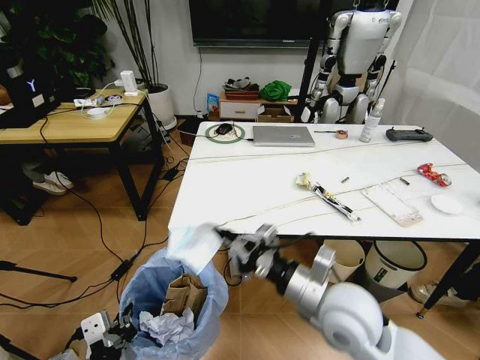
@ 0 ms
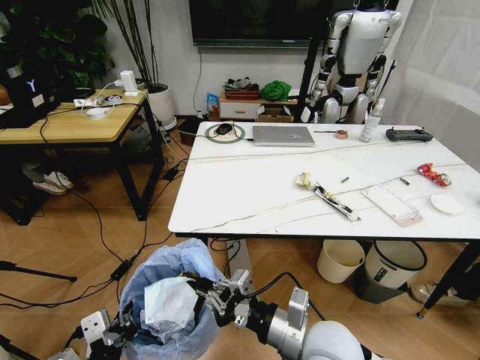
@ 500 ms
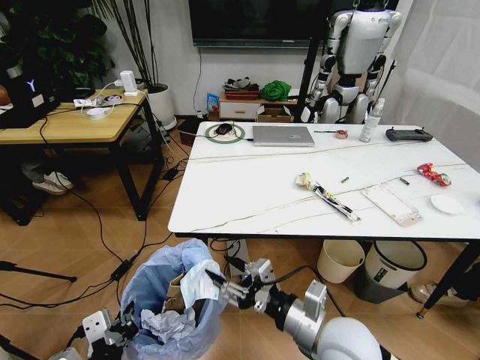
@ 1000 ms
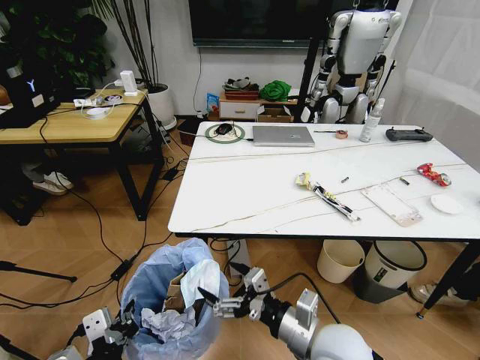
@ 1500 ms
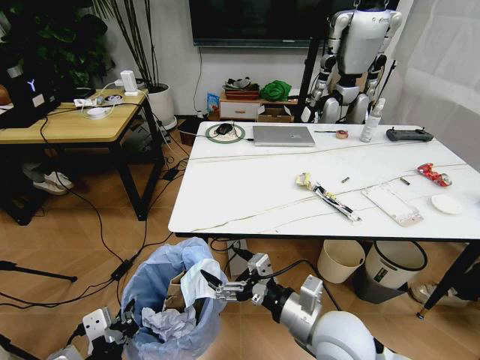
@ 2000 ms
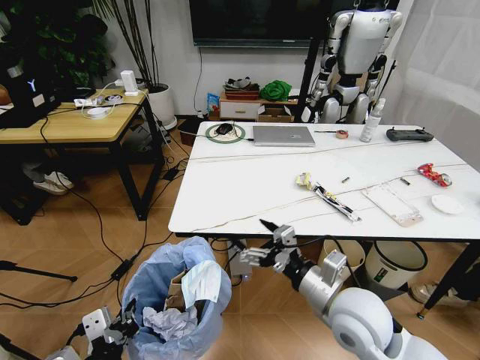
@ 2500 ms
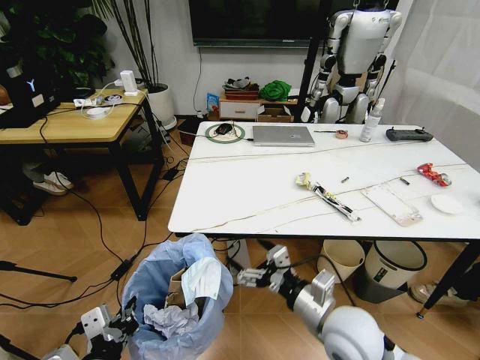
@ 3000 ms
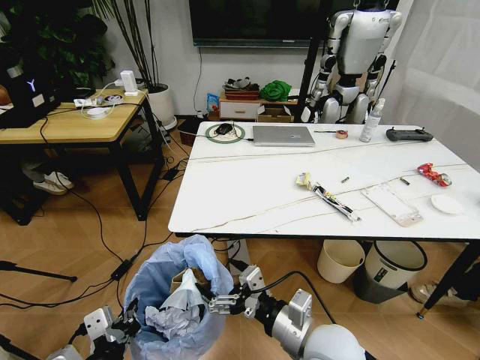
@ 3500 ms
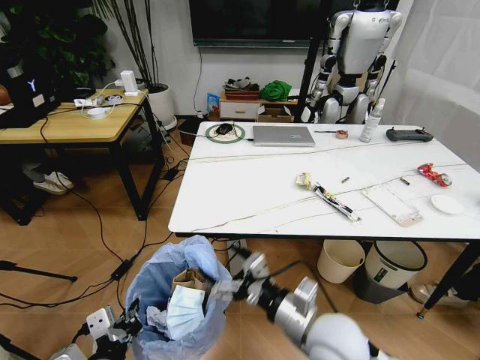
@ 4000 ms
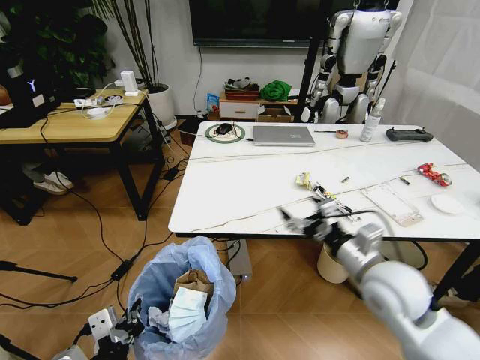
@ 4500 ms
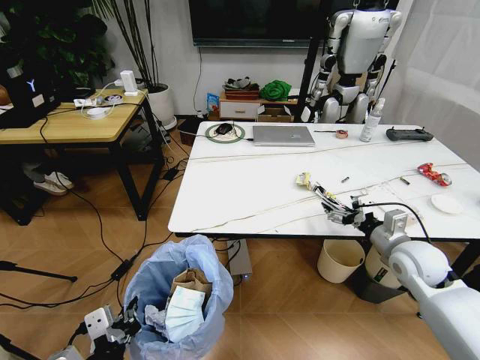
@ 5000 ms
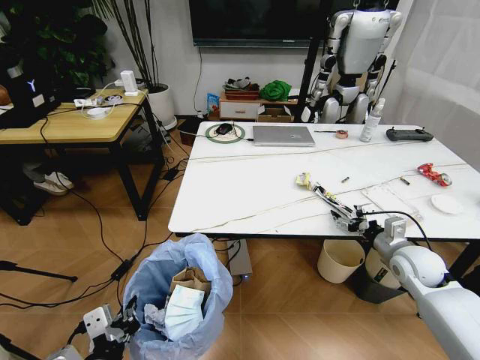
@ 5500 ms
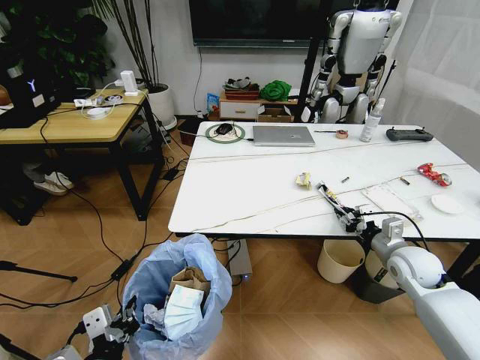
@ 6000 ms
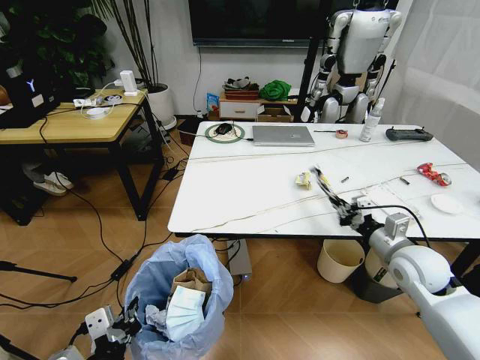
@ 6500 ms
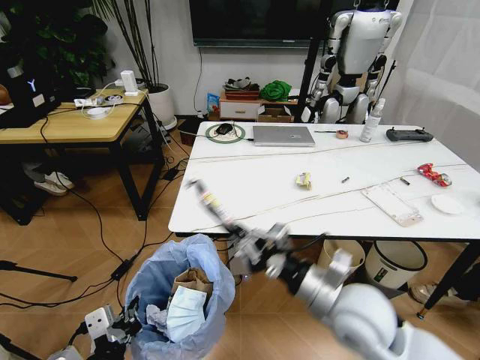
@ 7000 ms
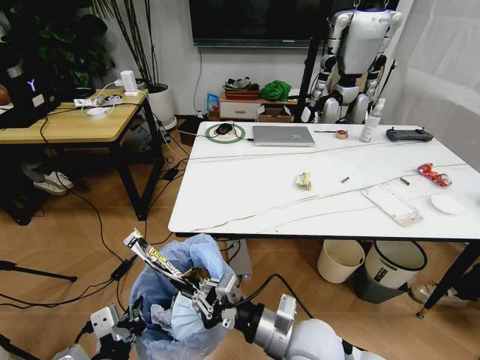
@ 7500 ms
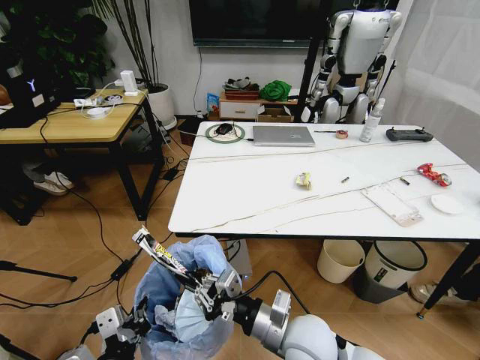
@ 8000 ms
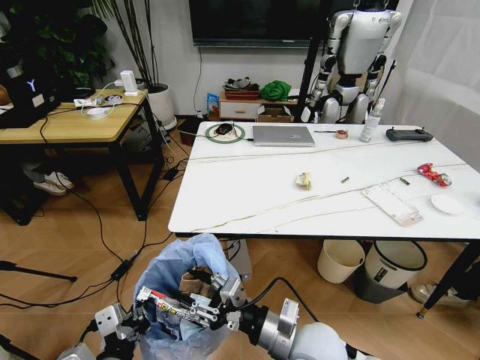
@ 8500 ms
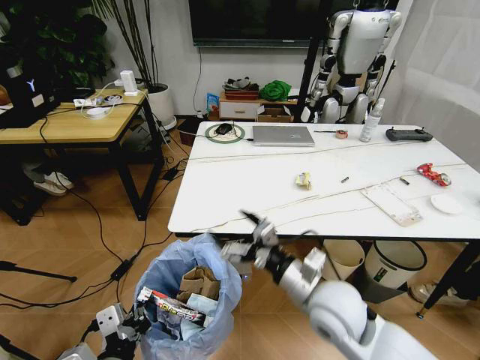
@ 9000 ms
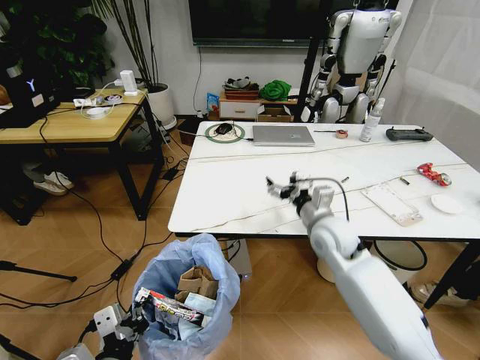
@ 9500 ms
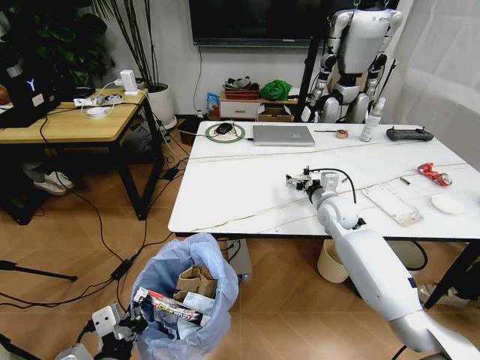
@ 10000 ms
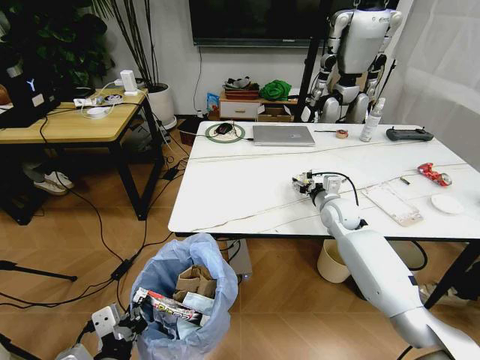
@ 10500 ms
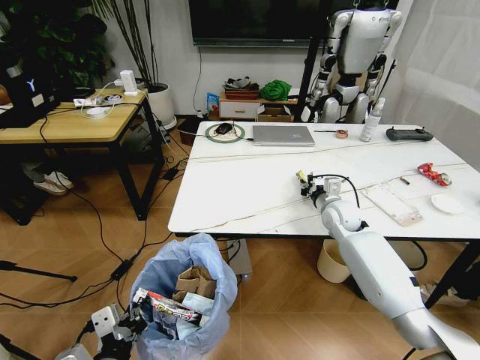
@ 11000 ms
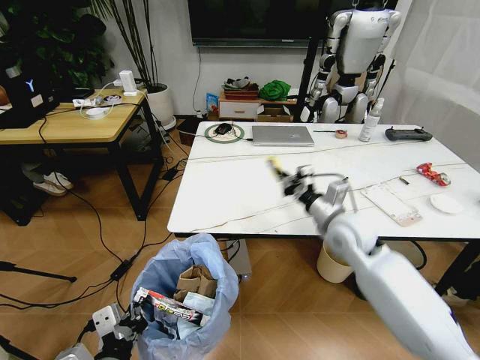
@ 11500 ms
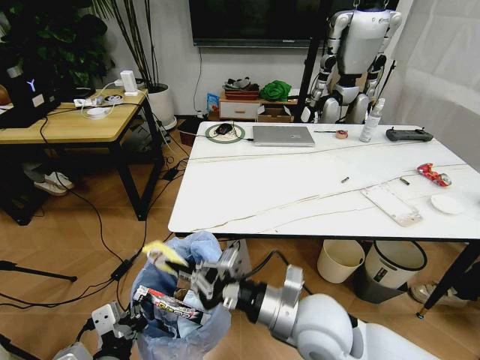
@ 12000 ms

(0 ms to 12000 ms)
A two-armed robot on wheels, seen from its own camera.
Task of the whole recording: Pick up the trash bin and place the trash from the table into it.
0 ms - 2000 ms: The right gripper ends up roughly 5 cm from where it was, and opens its fingers.
2000 ms - 4000 ms: The grippers stay close to where they were, moving slightly.
4000 ms - 6000 ms: The right gripper heads to the right and forward, covering about 30 cm, and closes up.
6000 ms - 8000 ms: The right gripper shifts about 35 cm to the left and backward.
8000 ms - 10000 ms: The right gripper heads forward and to the right, covering some 30 cm, and opens up.
10000 ms - 12000 ms: The right gripper goes some 30 cm backward and to the left, and closes.

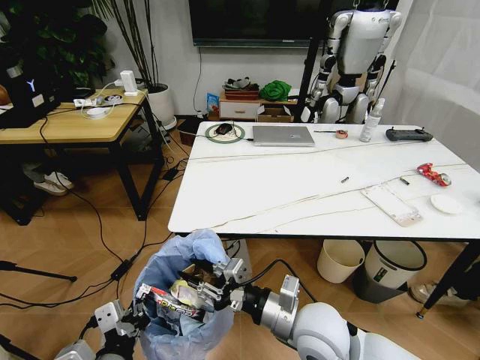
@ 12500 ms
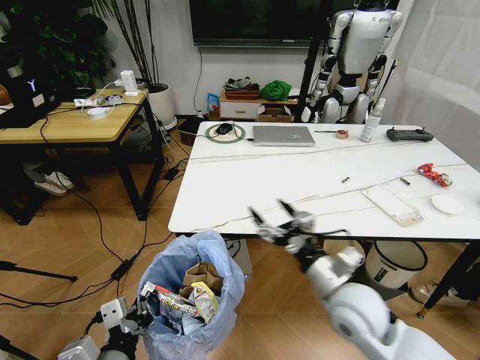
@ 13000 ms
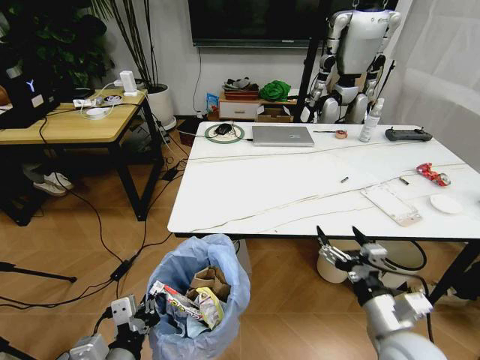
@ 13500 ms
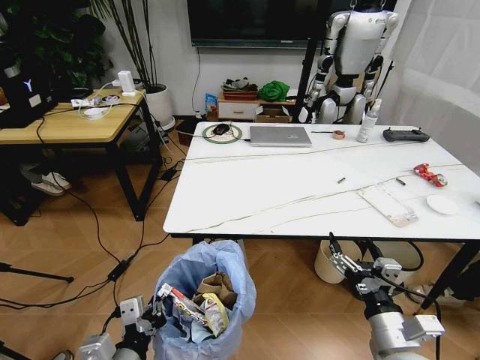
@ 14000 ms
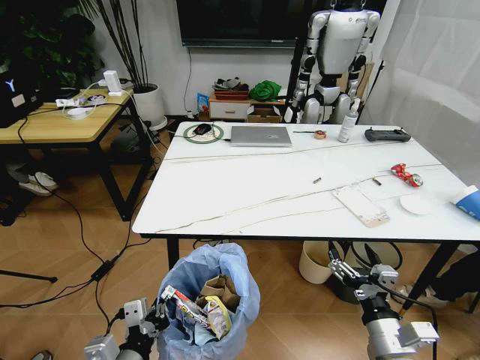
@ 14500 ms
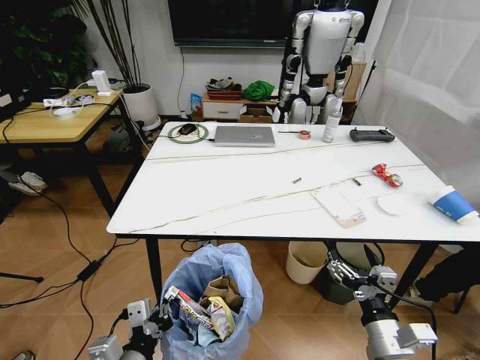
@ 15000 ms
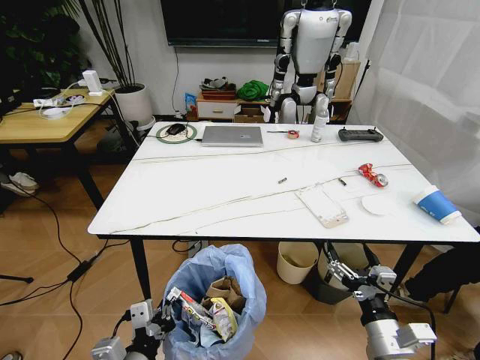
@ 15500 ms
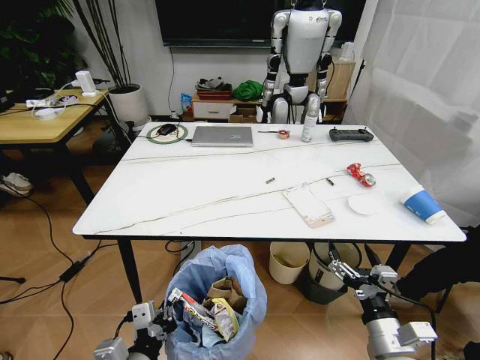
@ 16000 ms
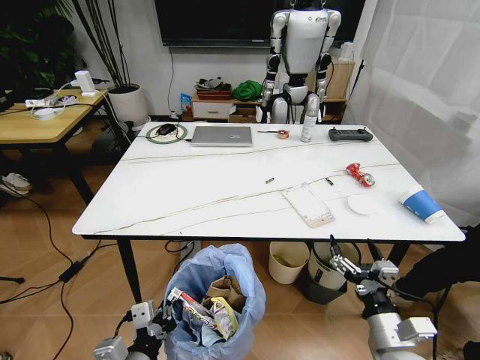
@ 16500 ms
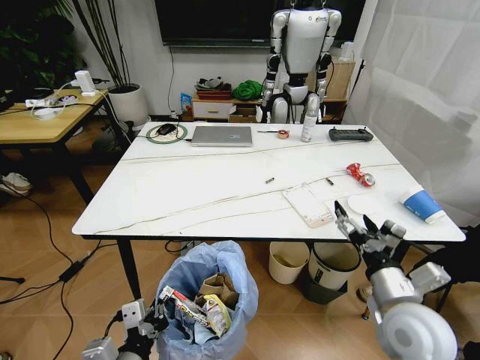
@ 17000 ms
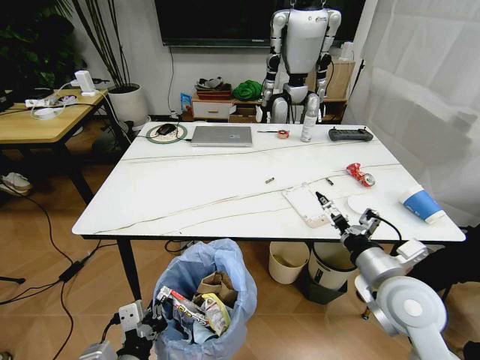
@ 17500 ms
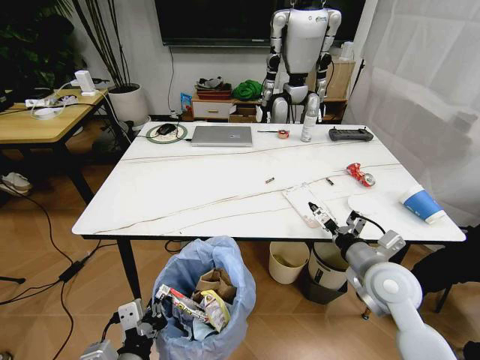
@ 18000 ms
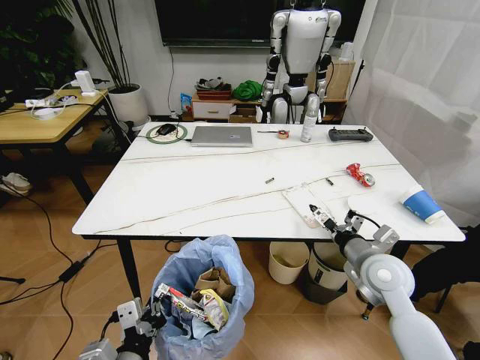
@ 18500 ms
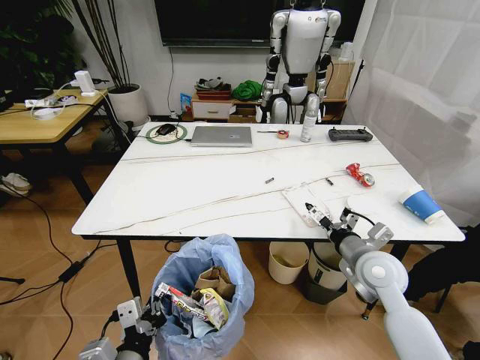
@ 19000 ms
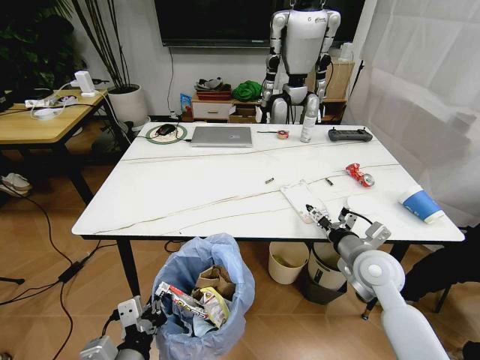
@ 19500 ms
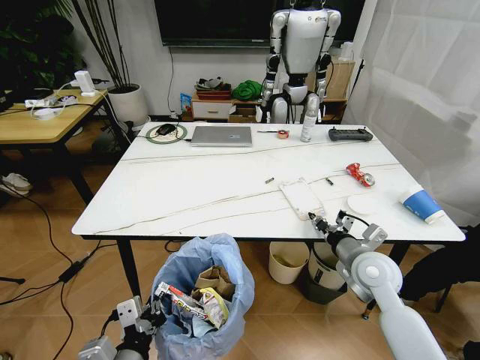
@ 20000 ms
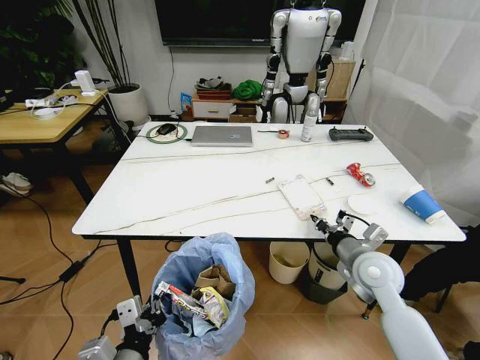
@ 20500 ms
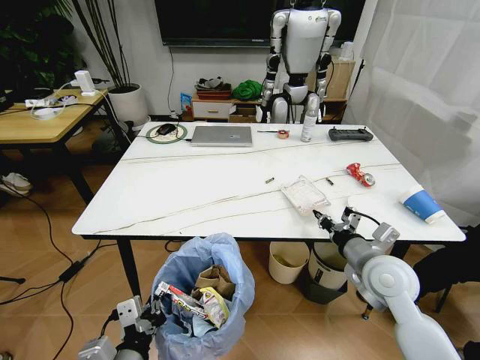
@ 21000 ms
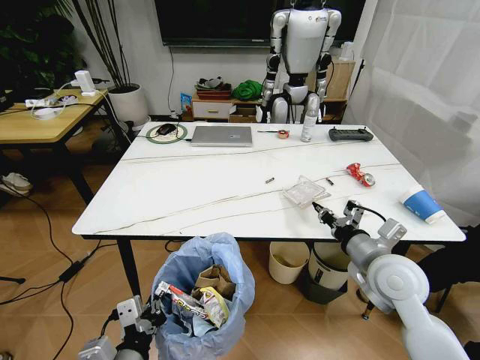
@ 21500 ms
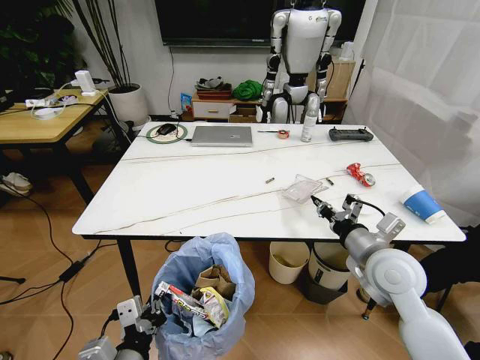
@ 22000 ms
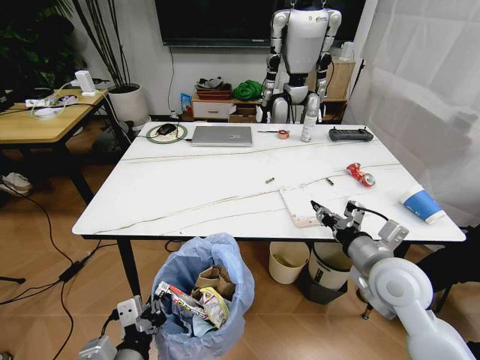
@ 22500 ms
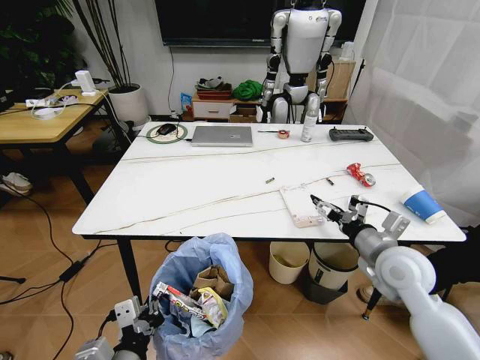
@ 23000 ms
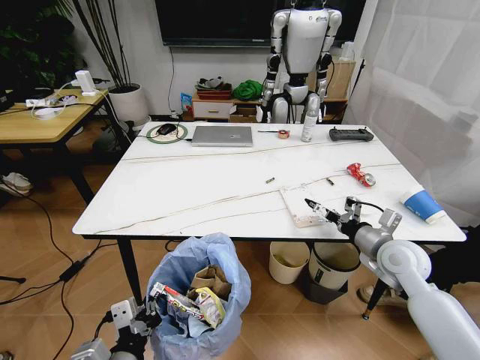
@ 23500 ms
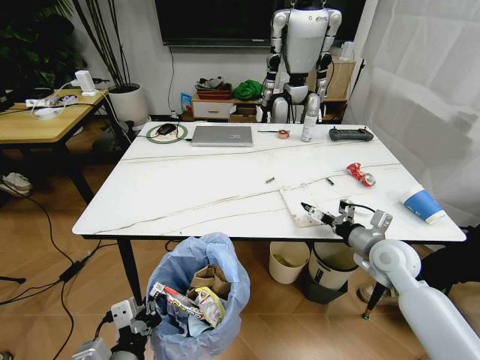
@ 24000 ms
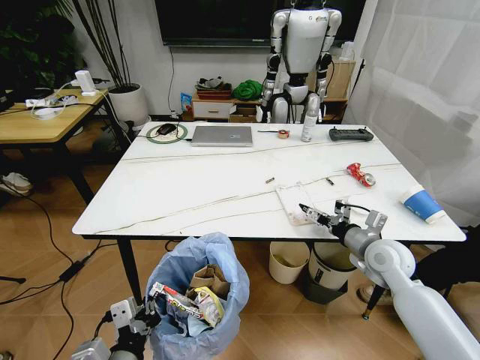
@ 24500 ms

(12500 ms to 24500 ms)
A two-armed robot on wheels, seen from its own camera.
Task of the whole recording: Pick up the trash bin and place the trash from the table into it.
12500 ms - 14500 ms: The right gripper shifts approximately 15 cm to the right and backward, and opens its fingers.
16500 ms - 18500 ms: The right gripper is displaced forward by roughly 15 cm.
18500 ms - 20500 ms: The right gripper closes.
20500 ms - 22500 ms: The right gripper heads upward, covering some 5 cm.
22500 ms - 24500 ms: The right gripper moves forward, downward and to the right, approximately 10 cm, and opens.

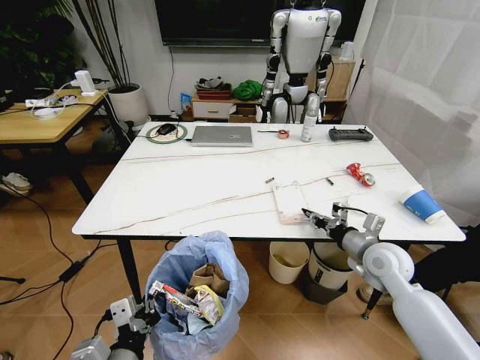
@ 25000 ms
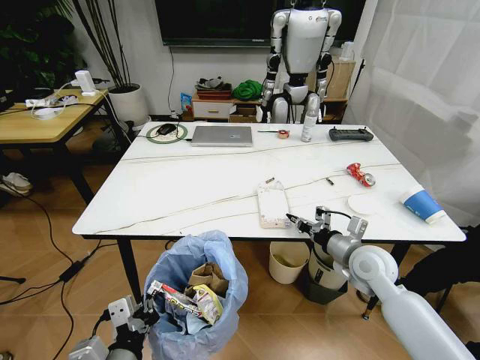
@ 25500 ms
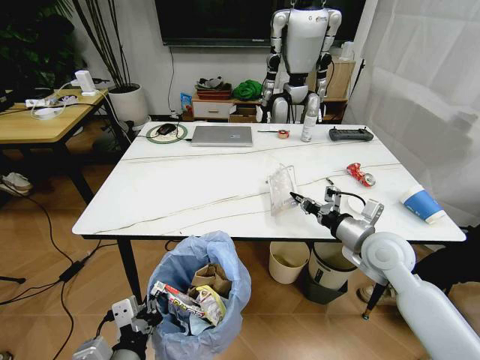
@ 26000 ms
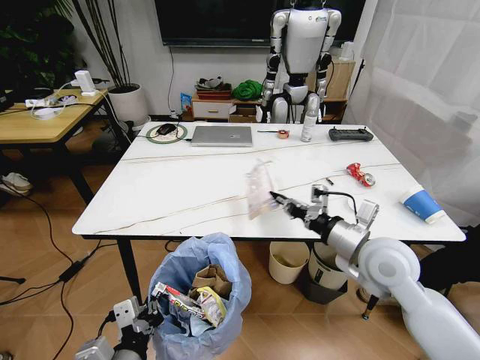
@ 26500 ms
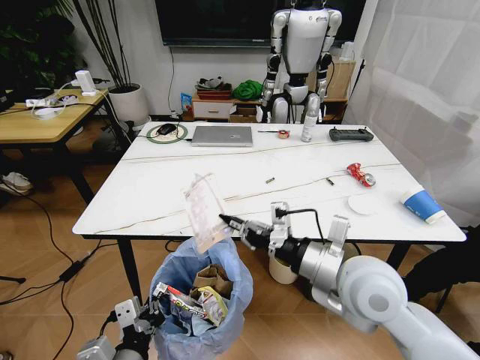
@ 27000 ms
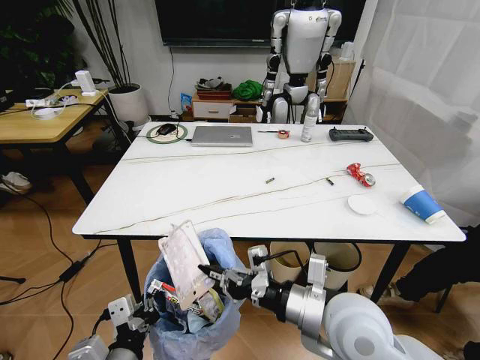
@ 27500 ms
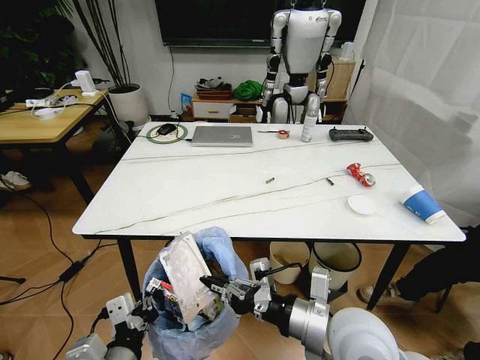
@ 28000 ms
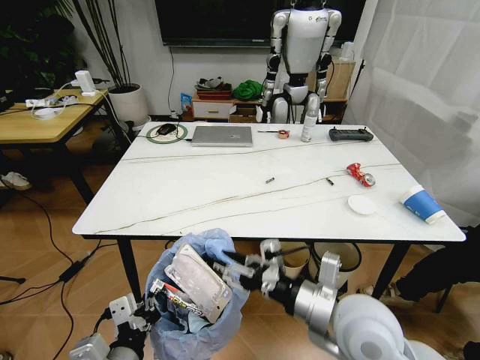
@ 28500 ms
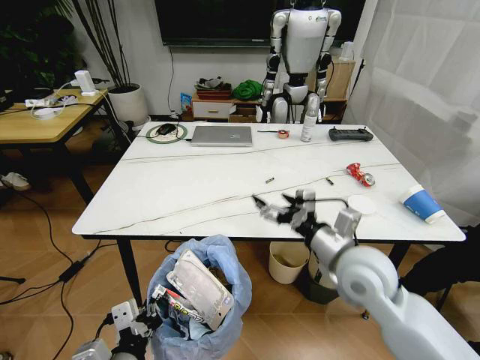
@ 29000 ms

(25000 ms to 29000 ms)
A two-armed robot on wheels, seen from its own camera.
Task of the whole recording: Pick up the trash bin and place the trash from the table into it.
25000 ms - 27000 ms: The right gripper is displaced to the left, upward and backward by some 20 cm.
27000 ms - 29000 ms: The right gripper opens up.
